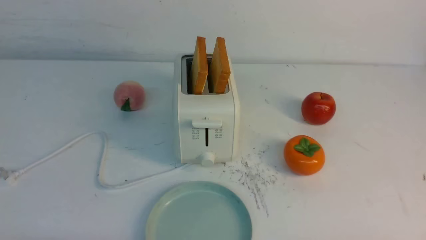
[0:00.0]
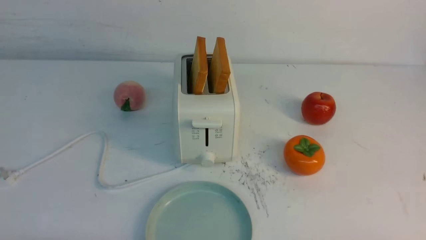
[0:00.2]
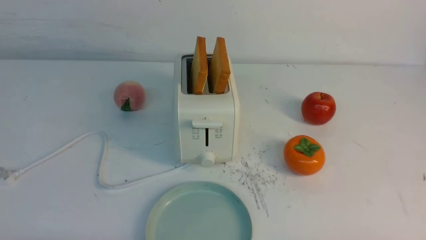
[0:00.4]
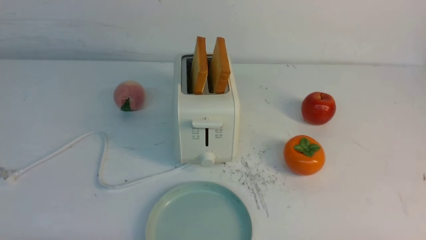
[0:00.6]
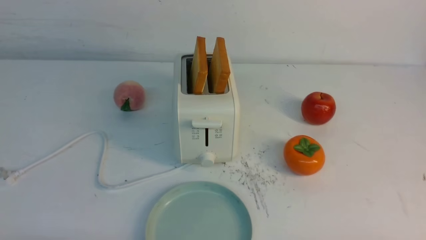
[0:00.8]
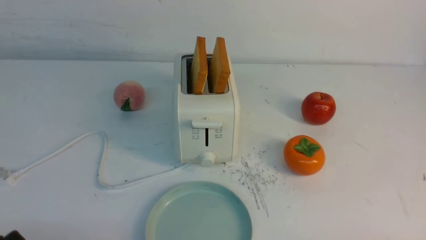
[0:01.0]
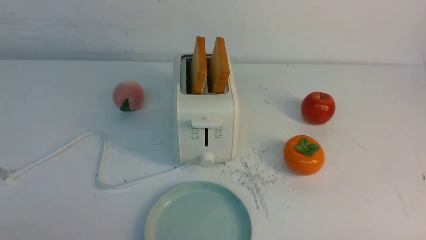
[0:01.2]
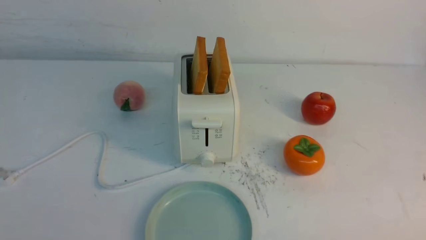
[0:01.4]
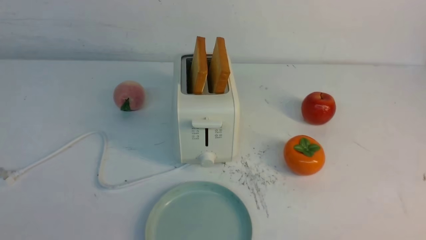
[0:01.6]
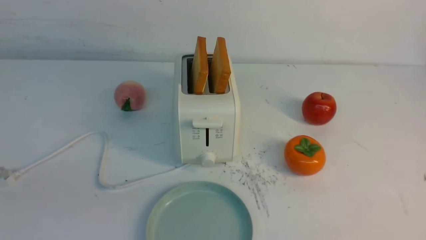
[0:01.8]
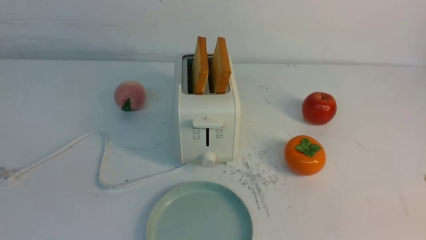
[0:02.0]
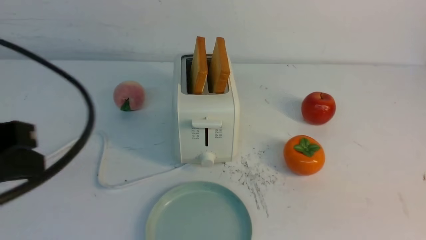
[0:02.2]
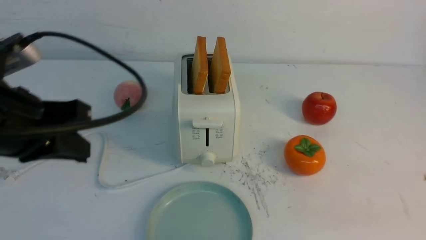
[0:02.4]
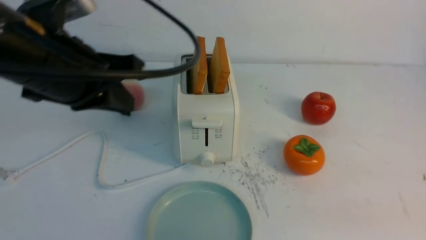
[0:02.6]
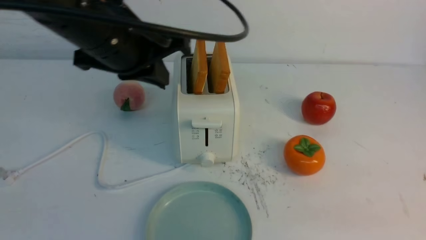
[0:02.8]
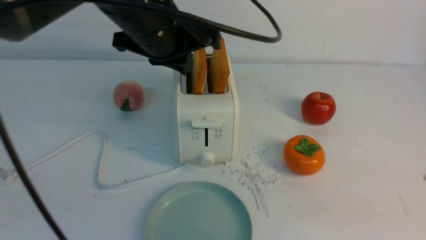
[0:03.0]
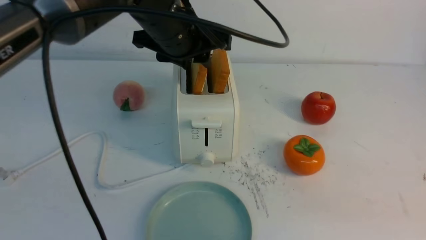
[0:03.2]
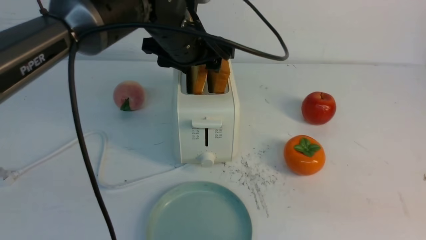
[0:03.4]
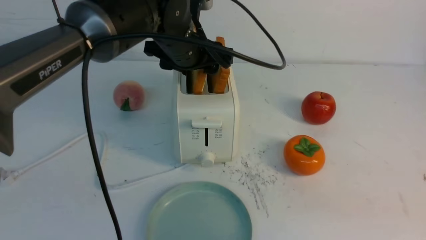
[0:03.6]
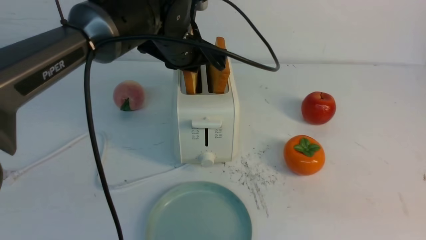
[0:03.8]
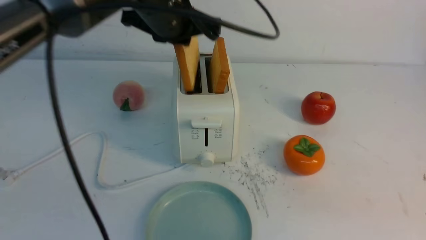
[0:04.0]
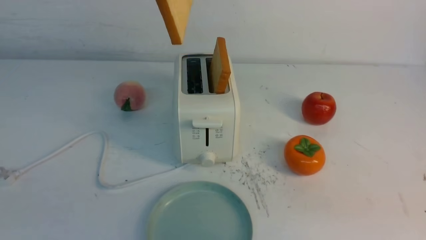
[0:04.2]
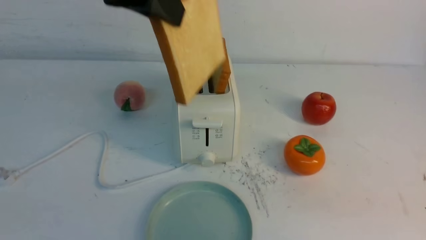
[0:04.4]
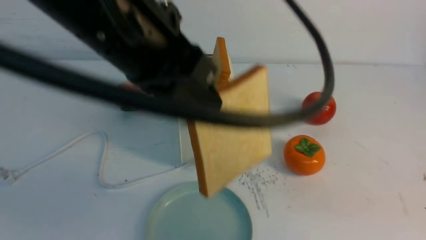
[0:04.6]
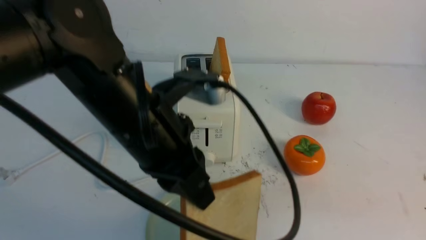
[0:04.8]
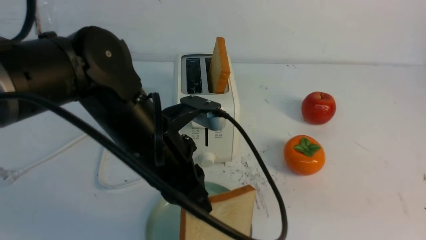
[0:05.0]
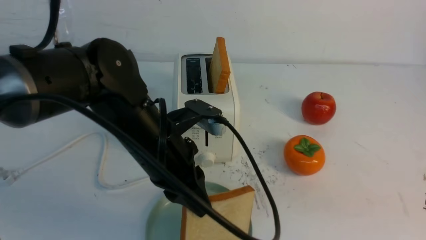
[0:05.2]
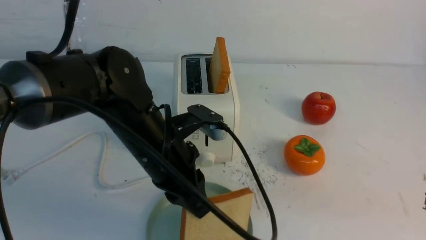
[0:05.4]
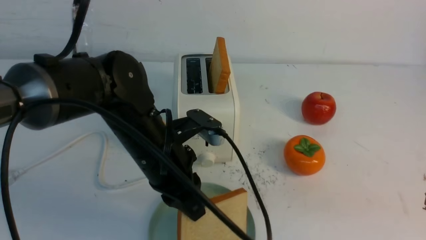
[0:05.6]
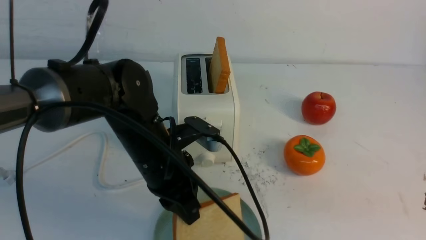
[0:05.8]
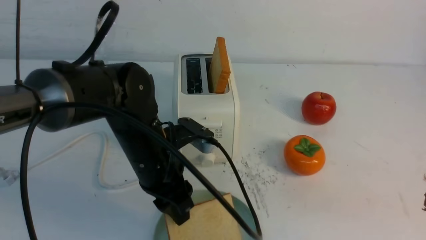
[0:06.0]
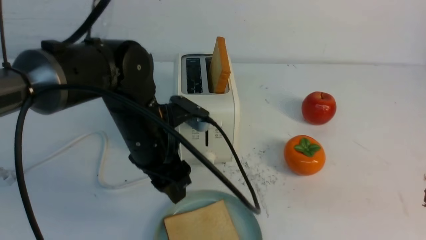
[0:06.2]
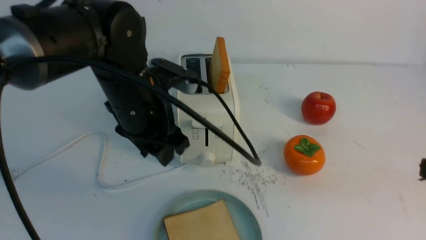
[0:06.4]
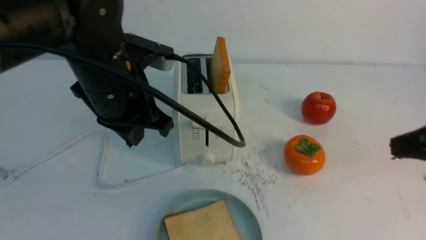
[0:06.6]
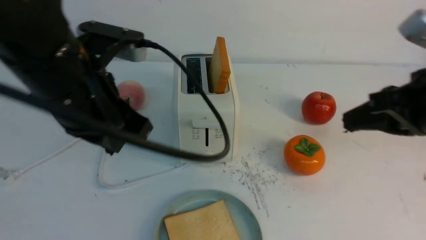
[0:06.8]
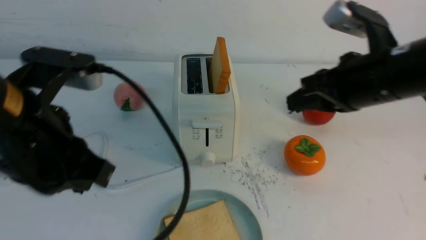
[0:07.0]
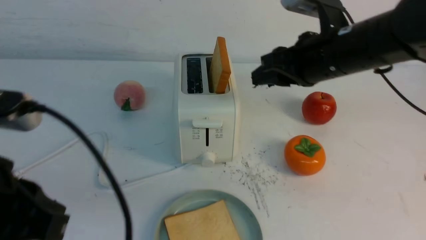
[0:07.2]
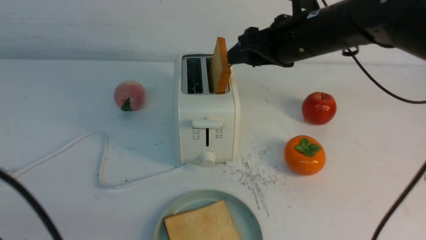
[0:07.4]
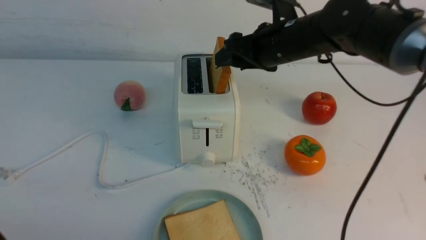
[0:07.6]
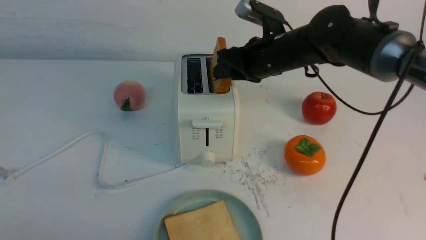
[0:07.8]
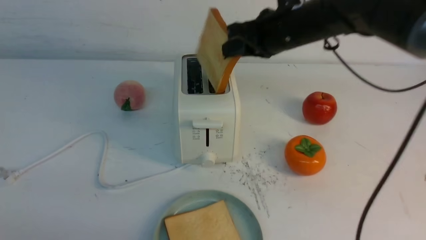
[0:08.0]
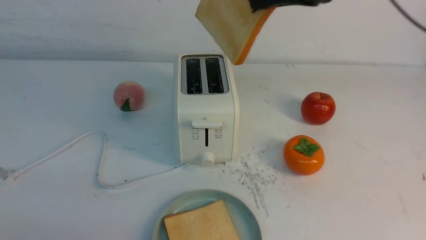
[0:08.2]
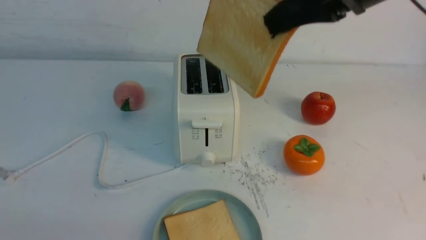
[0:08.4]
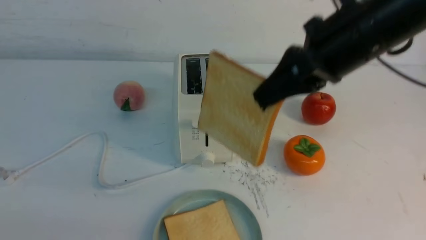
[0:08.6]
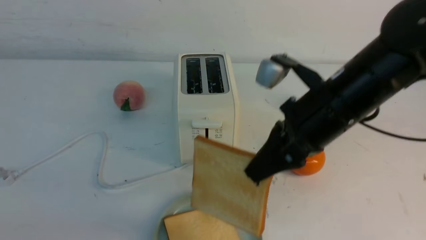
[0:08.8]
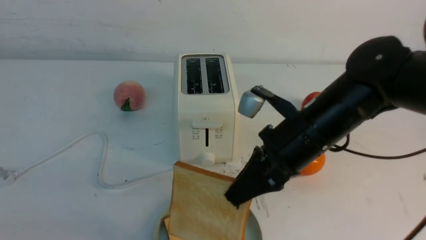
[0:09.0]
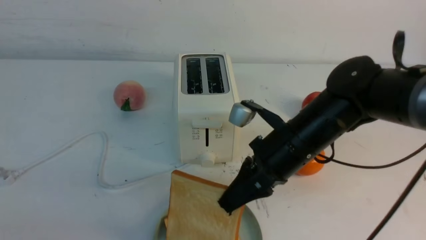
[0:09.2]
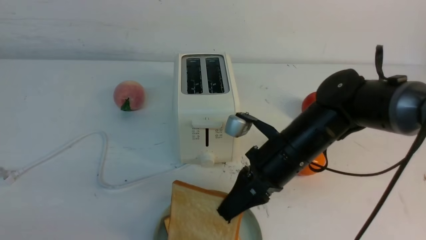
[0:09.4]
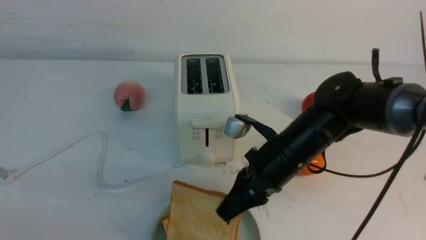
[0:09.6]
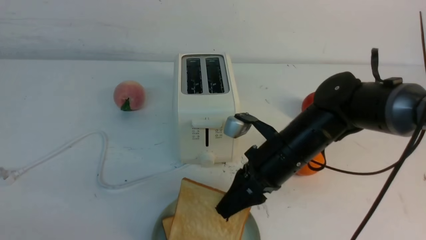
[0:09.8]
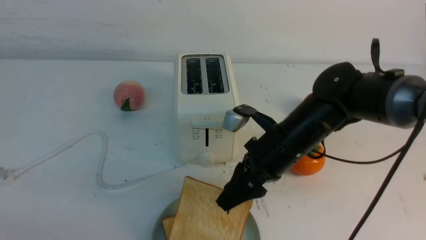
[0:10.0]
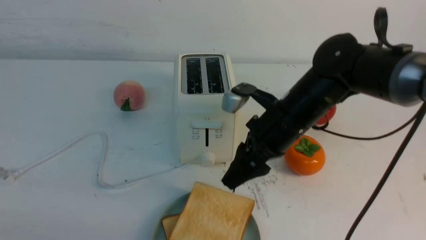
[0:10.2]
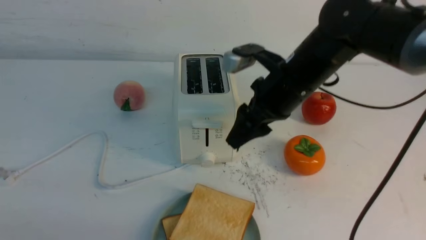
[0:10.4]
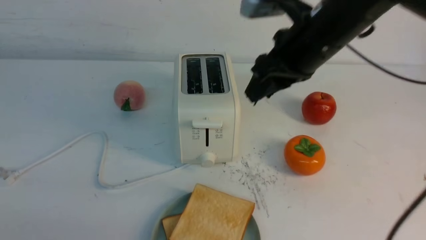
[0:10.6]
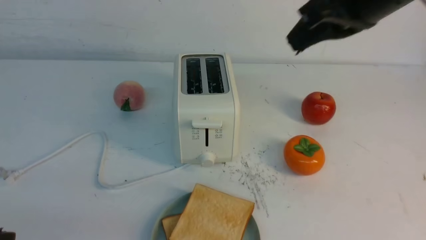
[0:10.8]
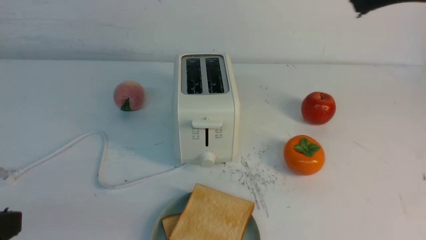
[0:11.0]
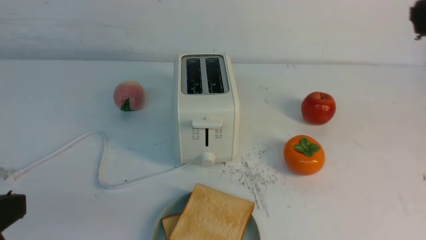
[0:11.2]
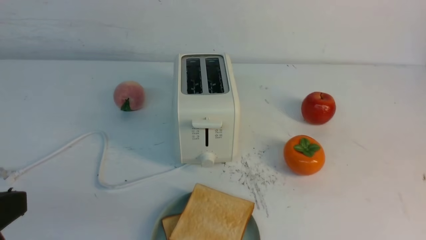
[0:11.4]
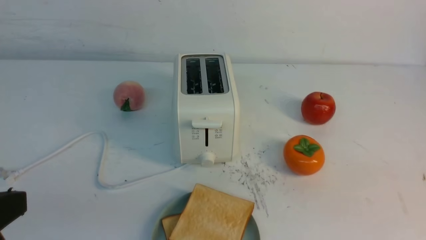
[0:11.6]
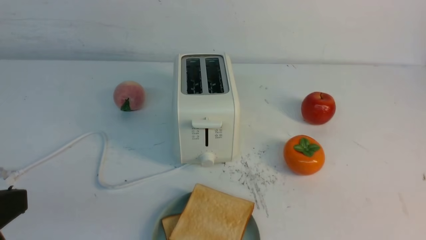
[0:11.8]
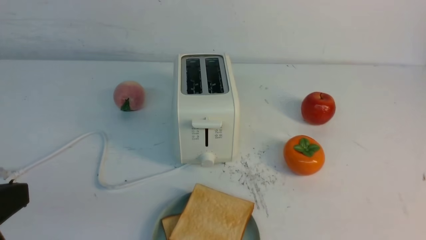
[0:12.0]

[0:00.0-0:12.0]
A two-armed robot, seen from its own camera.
Task of the whole recording: take toasted bread from bread machine on white table place on plate.
Step, 0:00.0 to 0:04.0: use the left arm to take out a slice of bread.
Step, 0:04.2 to 0:06.2: use the left arm to put a slice of bread into the empty plate.
Step, 0:06.4 to 0:08.0: use the right arm to take out a slice of bread.
Step, 0:08.2 to 0:10.2: use the right arm to put a slice of bread into the plate.
0:01.6 to 0:03.0: The right gripper heads upward, covering some 10 cm, and closes; the left gripper is displaced forward and to the right by about 35 cm, and opens up.
0:03.0 to 0:04.4: The left gripper is displaced backward and upward by about 10 cm, and opens, then closes again.
0:04.4 to 0:06.0: The left gripper travels downward by roughly 20 cm, and opens.
0:06.0 to 0:07.6: The right gripper is displaced forward and to the left by approximately 35 cm, and opens. Meanwhile the left gripper travels backward and to the left by approximately 25 cm, and closes.
0:07.6 to 0:09.0: The right gripper travels backward by about 15 cm, moves approximately 10 cm upward and comes back, and closes.
0:09.0 to 0:10.4: The right gripper is displaced forward by roughly 5 cm, and opens its fingers.
0:10.4 to 0:12.0: The right gripper travels backward and to the right by roughly 35 cm, and closes.

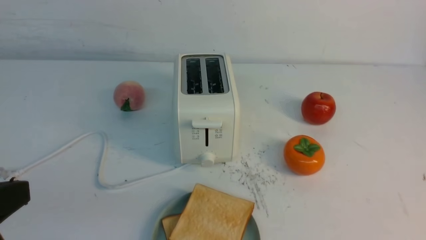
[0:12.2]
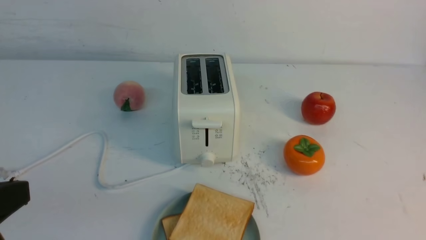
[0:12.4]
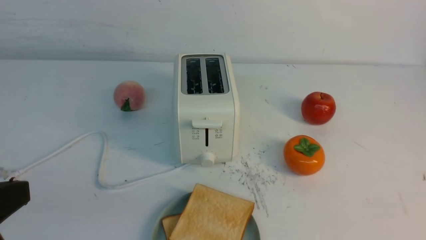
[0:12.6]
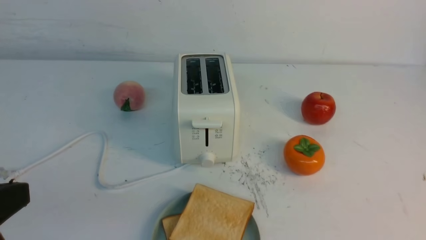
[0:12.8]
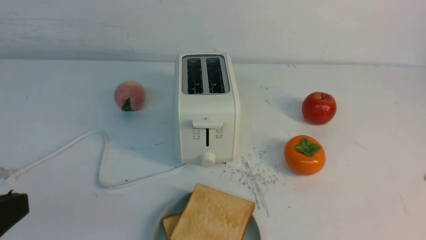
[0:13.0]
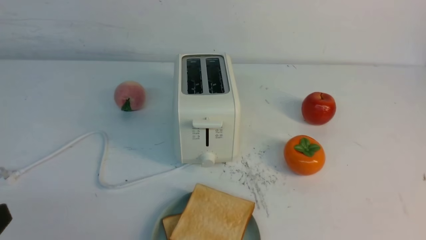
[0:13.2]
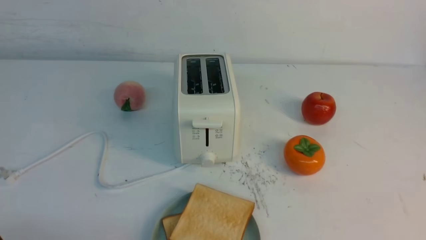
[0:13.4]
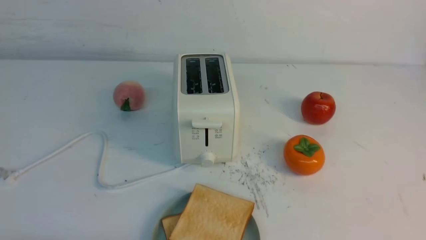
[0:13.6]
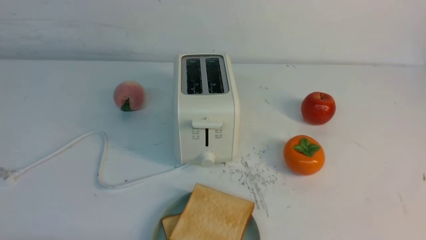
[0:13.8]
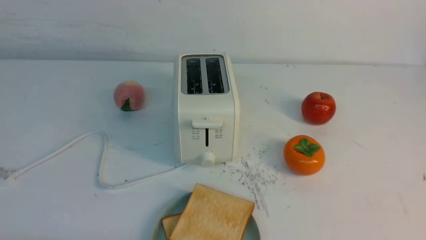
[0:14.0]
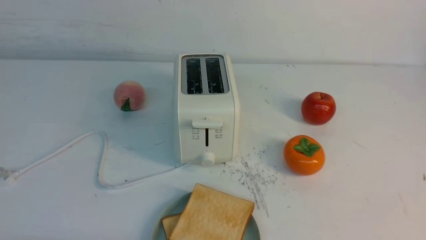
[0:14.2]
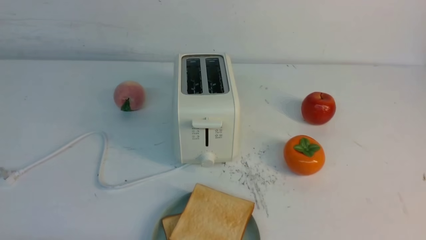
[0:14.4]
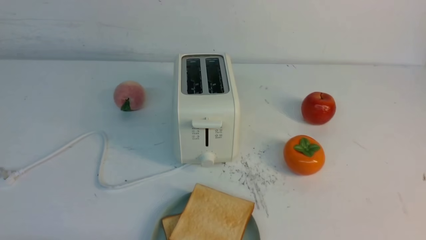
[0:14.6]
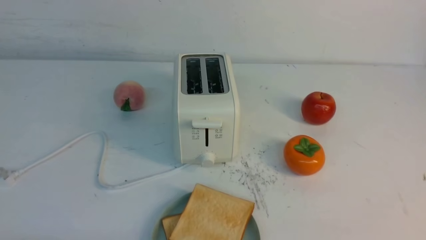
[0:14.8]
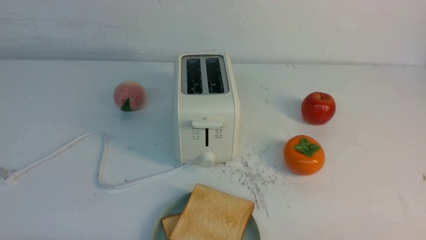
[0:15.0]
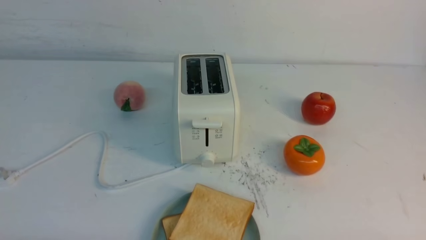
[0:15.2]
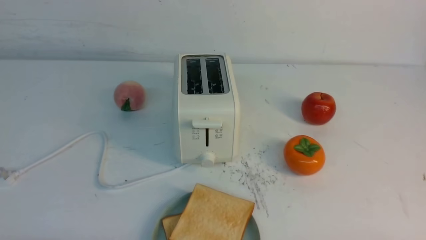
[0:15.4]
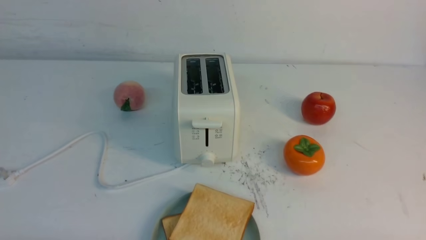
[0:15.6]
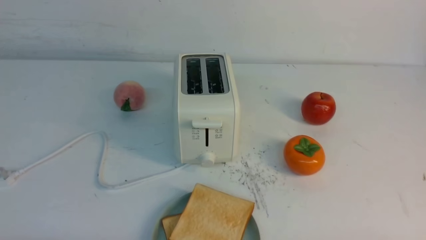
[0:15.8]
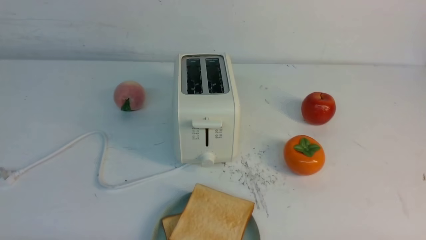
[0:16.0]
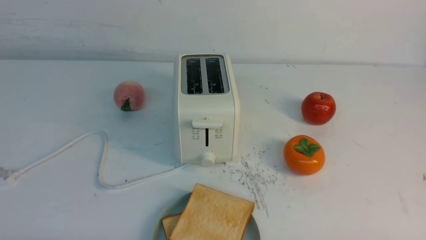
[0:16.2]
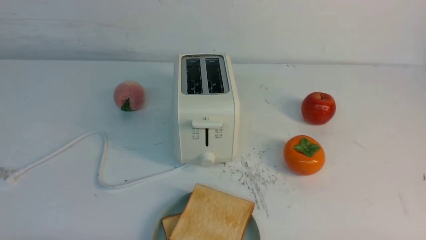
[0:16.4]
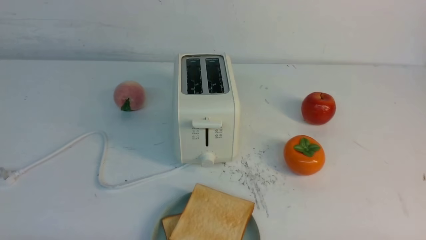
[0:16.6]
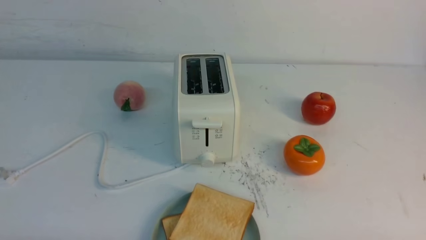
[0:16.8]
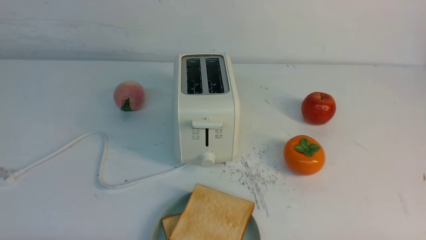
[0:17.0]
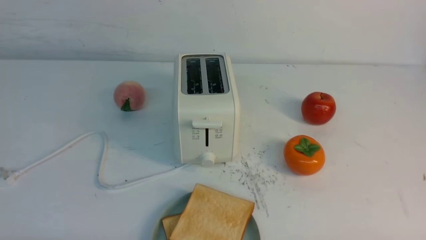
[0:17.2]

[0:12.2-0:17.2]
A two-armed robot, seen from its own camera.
Task of the whole recording: take toasted bread from bread machine on white table place on plate.
0:12.2 to 0:13.8: The left gripper goes about 15 cm downward.
0:15.6 to 0:17.2: The two grippers keep their place.
